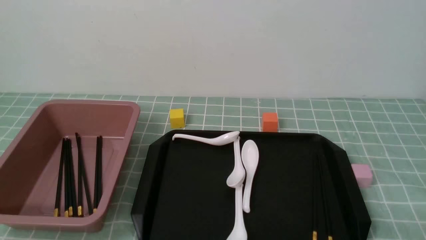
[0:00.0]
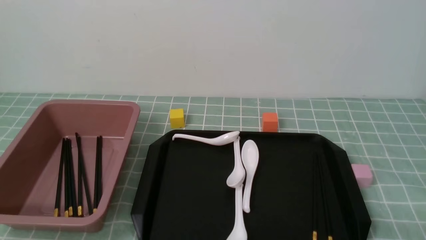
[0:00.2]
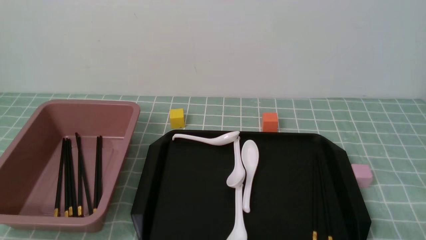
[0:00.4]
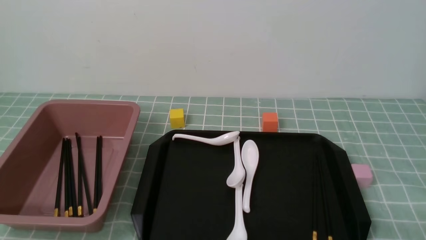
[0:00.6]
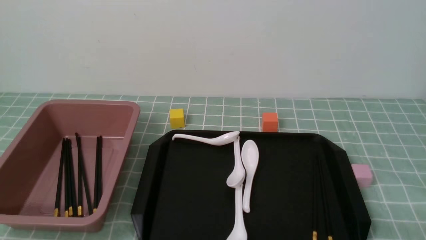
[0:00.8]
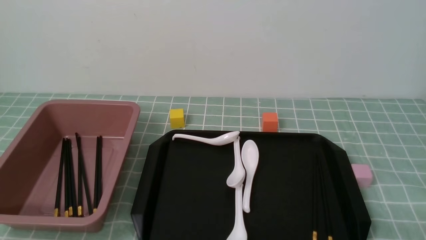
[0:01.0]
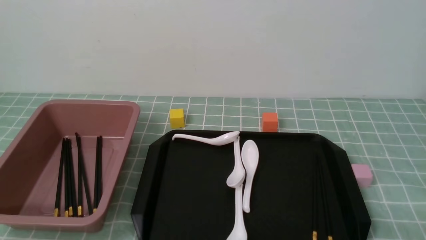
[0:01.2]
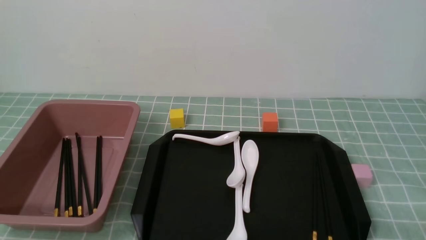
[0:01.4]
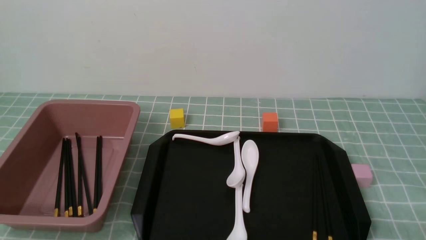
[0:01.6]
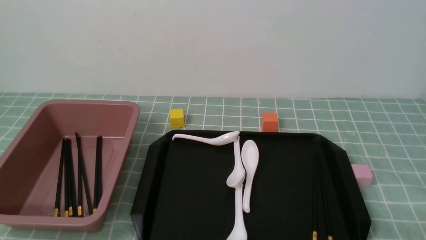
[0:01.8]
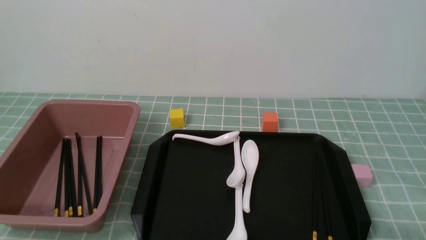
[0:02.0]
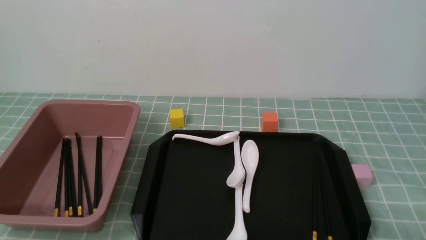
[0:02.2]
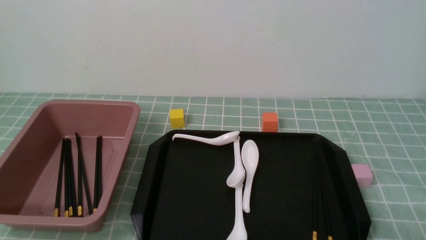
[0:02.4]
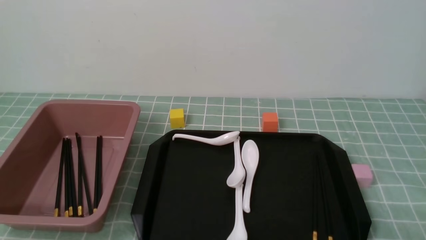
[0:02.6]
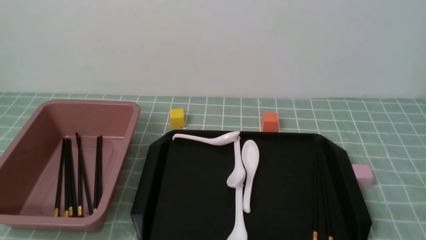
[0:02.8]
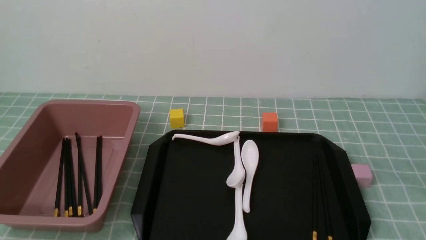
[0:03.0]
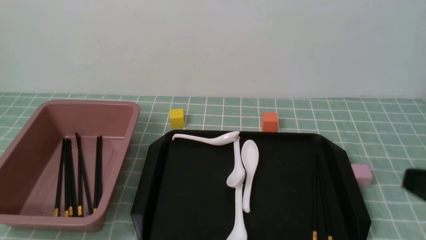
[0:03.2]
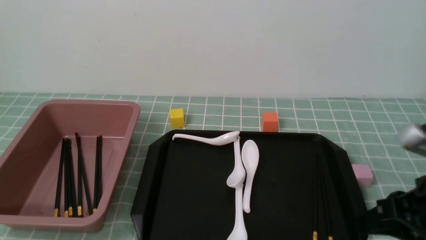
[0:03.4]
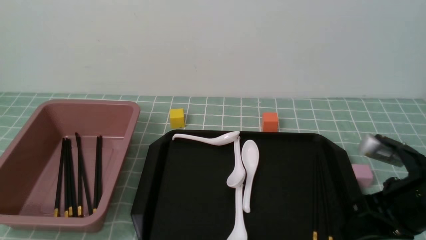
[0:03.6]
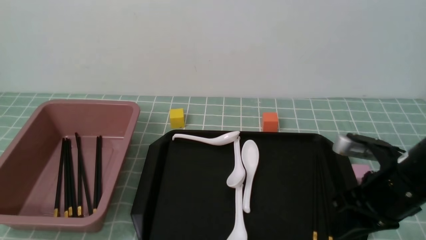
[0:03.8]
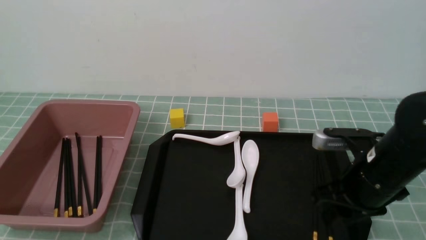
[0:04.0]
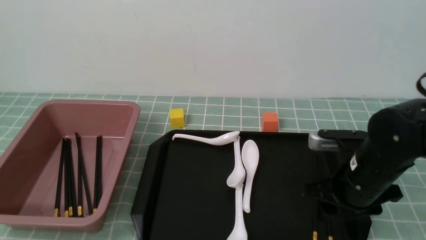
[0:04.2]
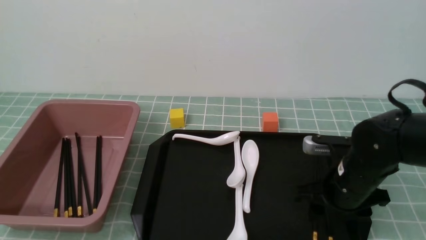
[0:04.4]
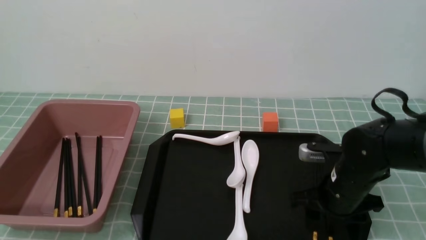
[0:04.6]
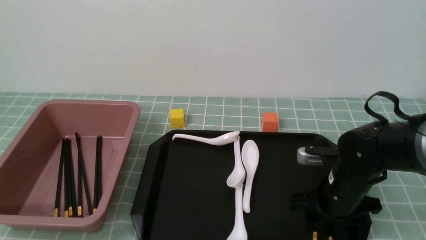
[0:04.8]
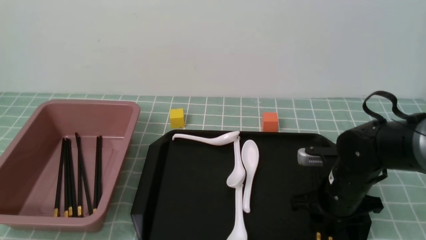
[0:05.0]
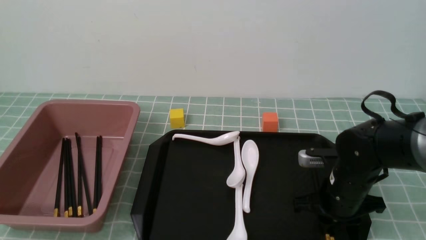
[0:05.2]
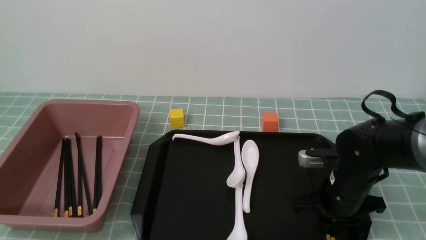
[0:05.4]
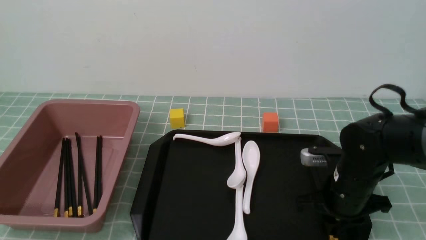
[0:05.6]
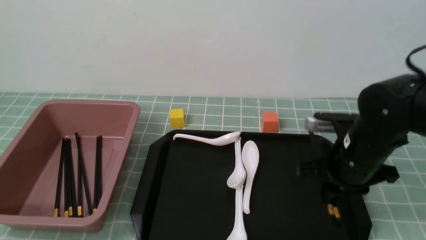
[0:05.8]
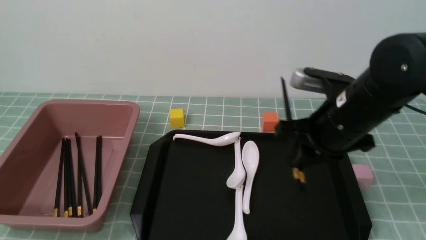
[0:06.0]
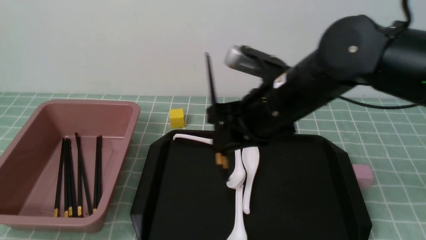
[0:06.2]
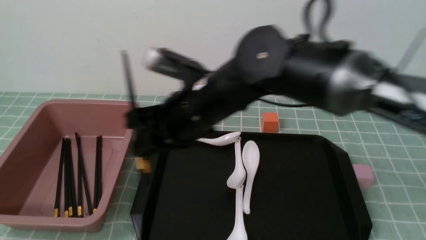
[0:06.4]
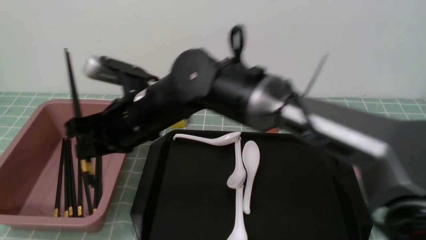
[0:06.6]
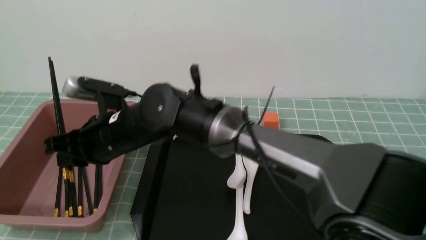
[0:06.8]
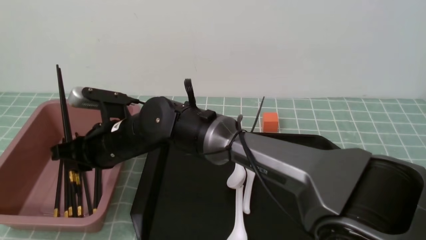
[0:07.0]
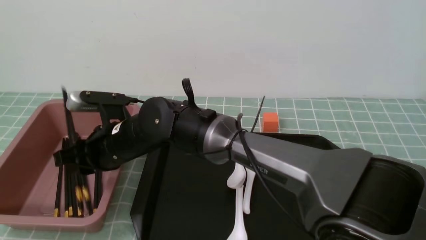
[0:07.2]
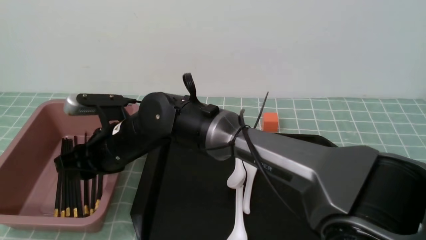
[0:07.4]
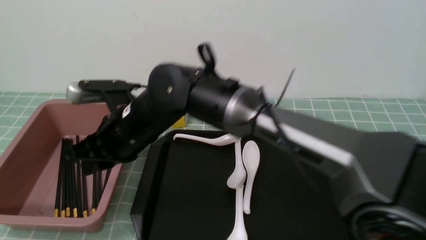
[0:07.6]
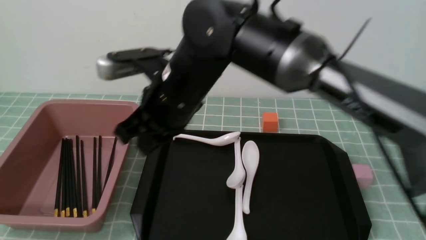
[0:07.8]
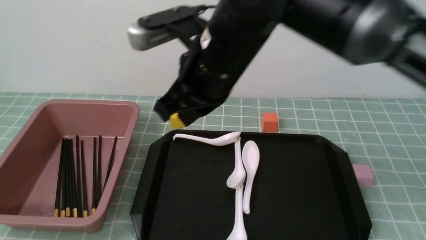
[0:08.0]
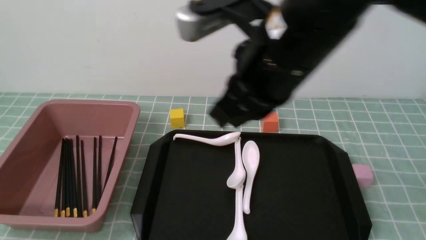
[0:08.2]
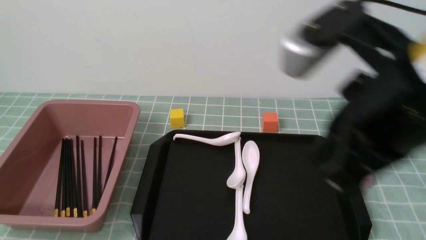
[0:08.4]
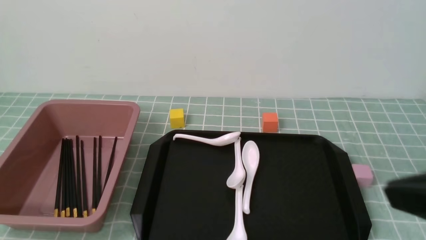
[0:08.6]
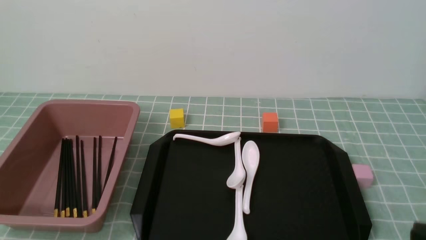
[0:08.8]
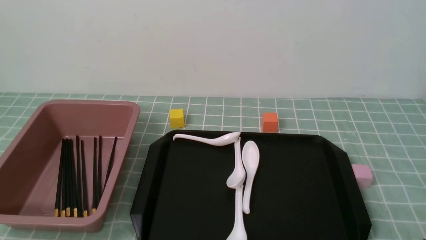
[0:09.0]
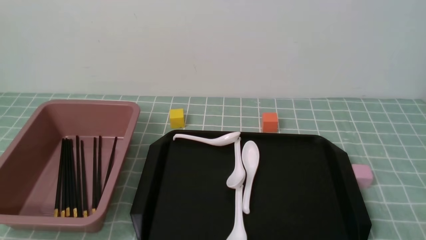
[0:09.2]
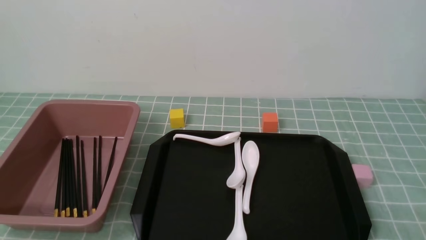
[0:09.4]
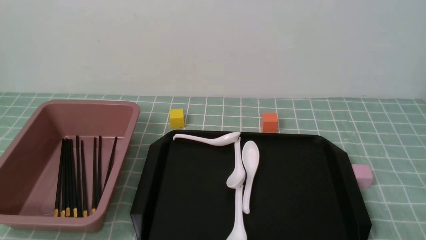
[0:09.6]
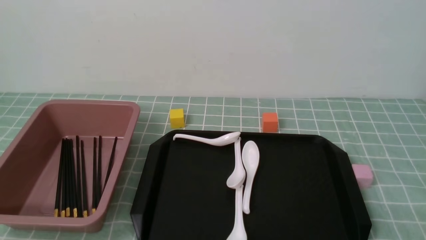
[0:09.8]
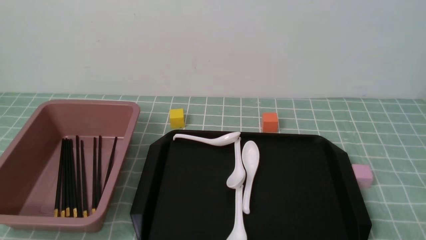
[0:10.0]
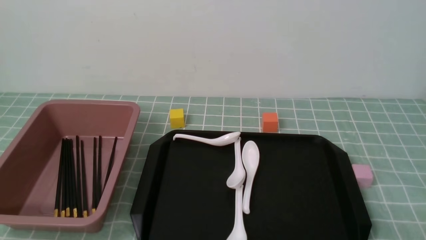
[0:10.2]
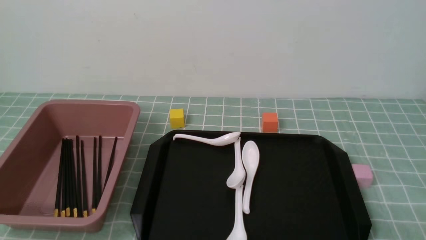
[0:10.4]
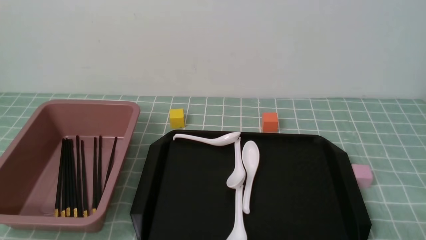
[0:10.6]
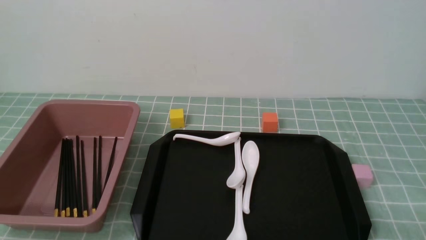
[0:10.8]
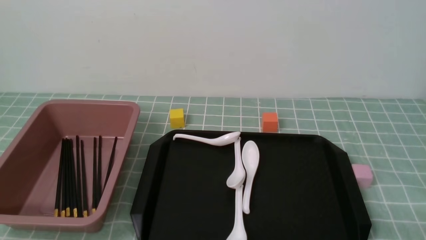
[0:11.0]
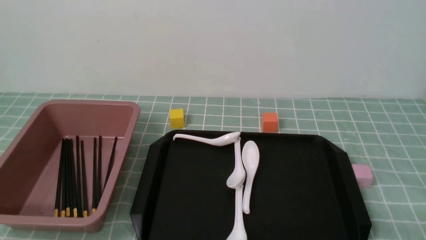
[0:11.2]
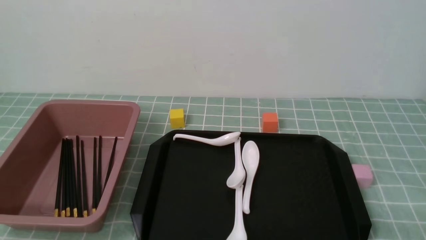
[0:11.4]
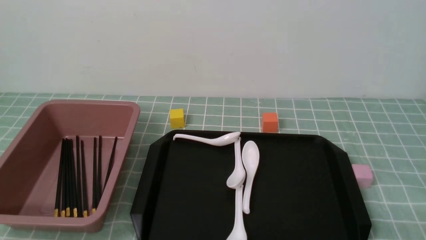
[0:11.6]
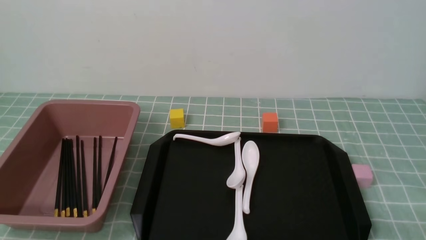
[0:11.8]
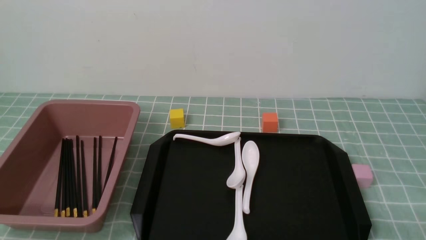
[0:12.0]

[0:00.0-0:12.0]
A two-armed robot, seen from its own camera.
Step, 0:00.0 to 0:05.8: use the right arm to grab a pair of chopsticks.
Step, 0:06.0 to 0:07.6: use the right arm to put the chopsticks into the lunch box.
0:00.0 to 0:01.6: Neither gripper changes place.
0:03.0 to 0:04.4: The right gripper goes roughly 25 cm forward, downward and to the left, and opens its fingers.
0:04.4 to 0:06.0: The right gripper heads upward and to the left, covering about 10 cm, and closes.
0:06.0 to 0:07.6: The right gripper goes roughly 20 cm to the left.
0:07.6 to 0:09.0: The right gripper is displaced to the right and backward by about 50 cm, and closes.

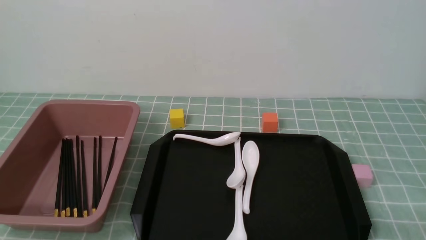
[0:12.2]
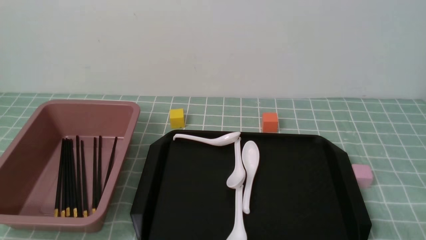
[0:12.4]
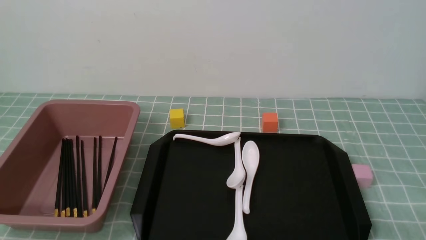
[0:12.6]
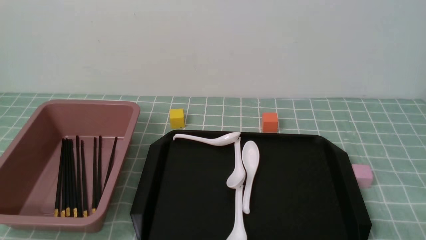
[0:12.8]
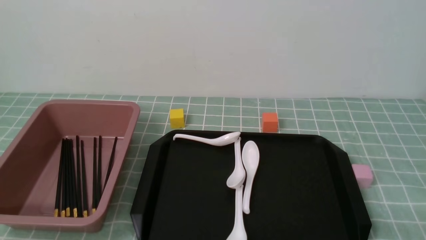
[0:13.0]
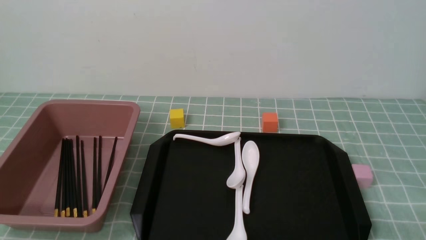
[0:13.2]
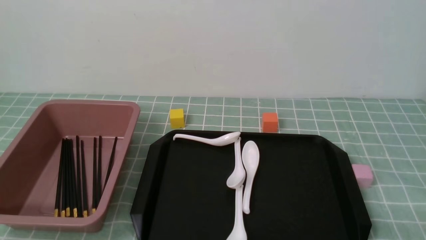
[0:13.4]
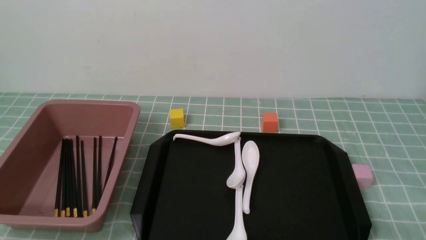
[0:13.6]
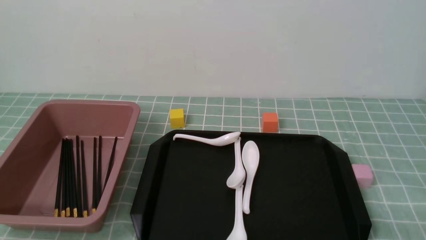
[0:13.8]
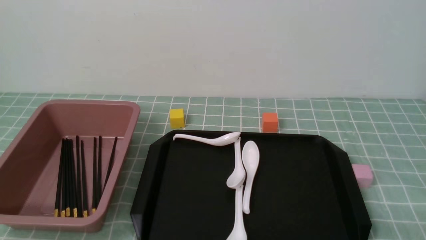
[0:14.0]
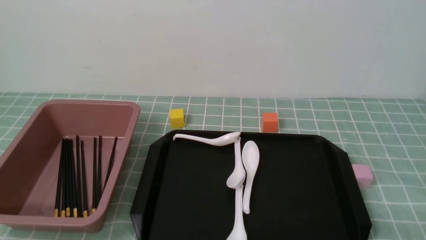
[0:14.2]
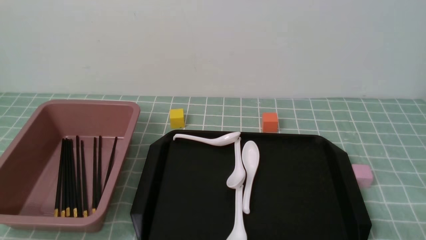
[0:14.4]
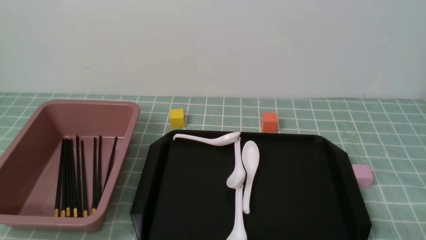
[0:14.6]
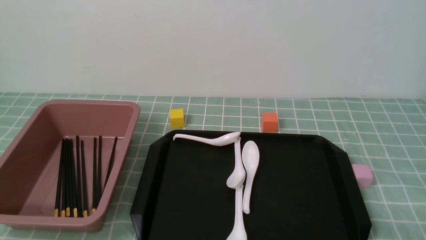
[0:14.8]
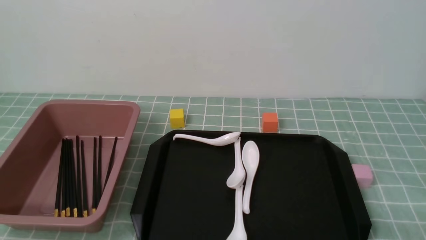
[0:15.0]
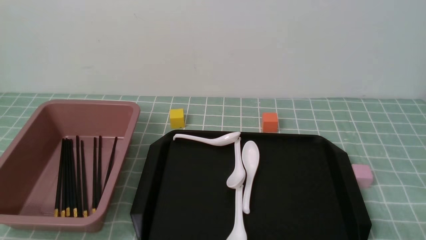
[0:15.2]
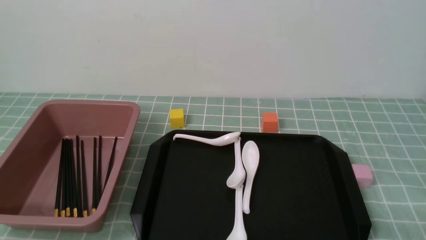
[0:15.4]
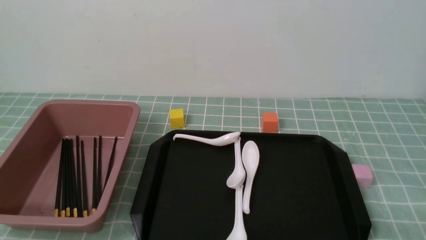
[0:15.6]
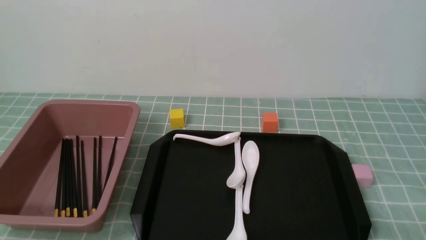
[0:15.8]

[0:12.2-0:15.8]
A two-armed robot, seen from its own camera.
0:12.2 to 0:15.8: Neither gripper changes place.
